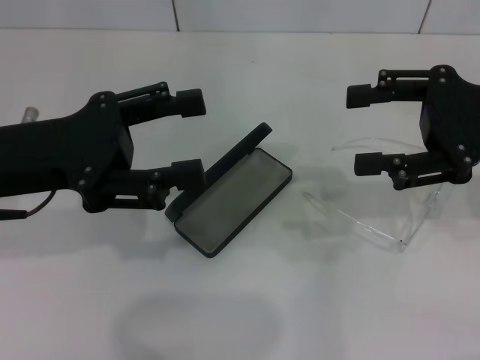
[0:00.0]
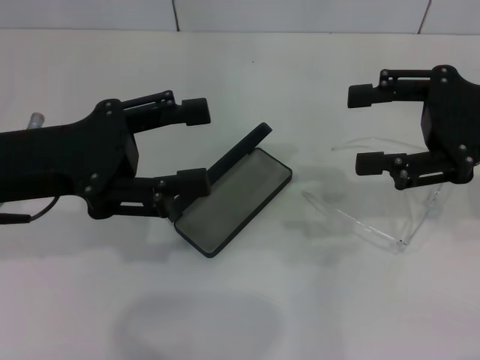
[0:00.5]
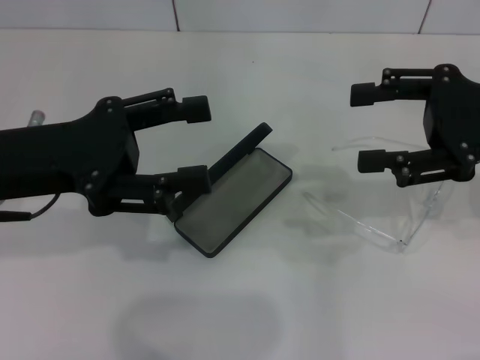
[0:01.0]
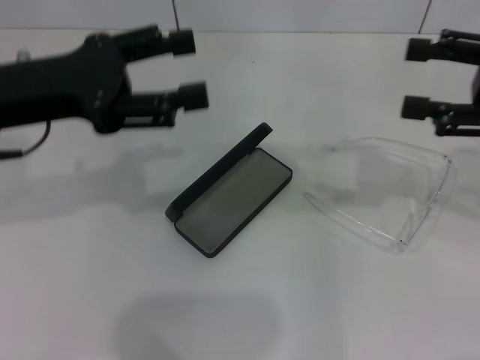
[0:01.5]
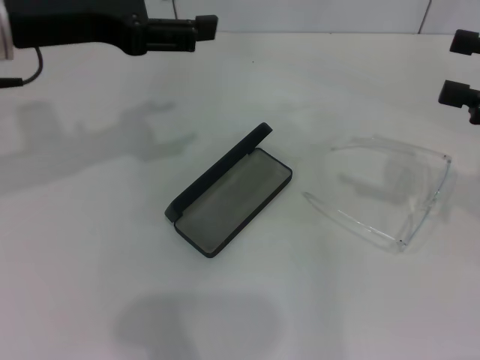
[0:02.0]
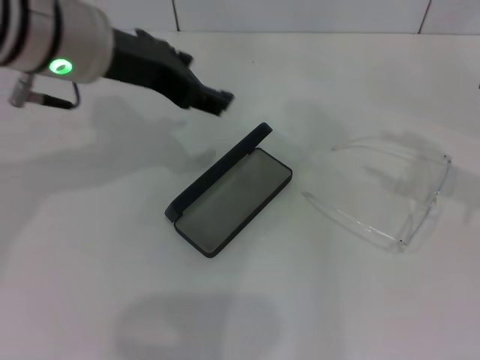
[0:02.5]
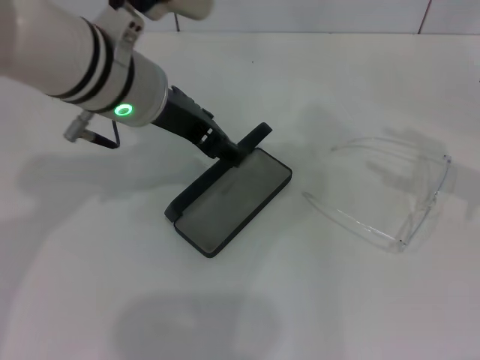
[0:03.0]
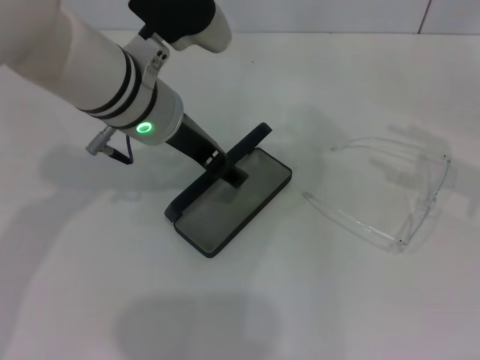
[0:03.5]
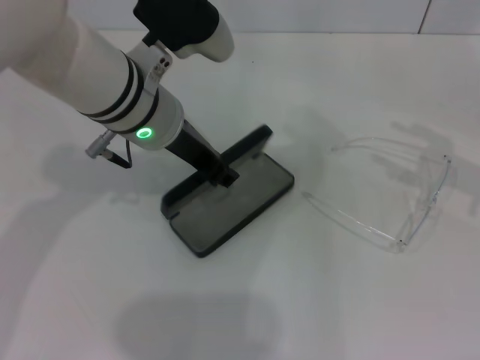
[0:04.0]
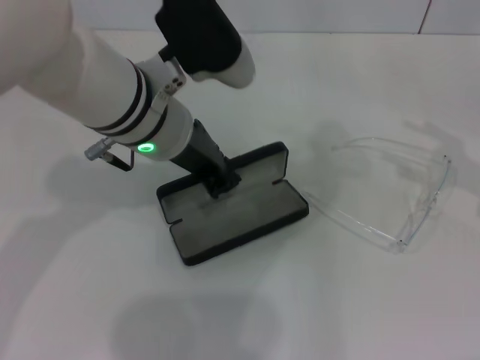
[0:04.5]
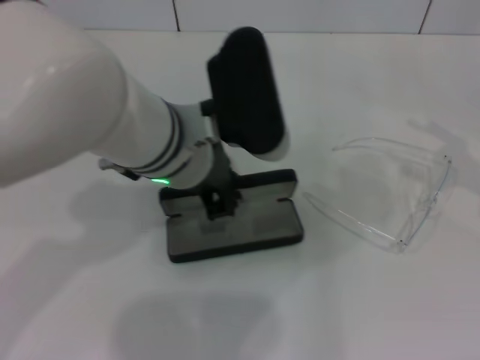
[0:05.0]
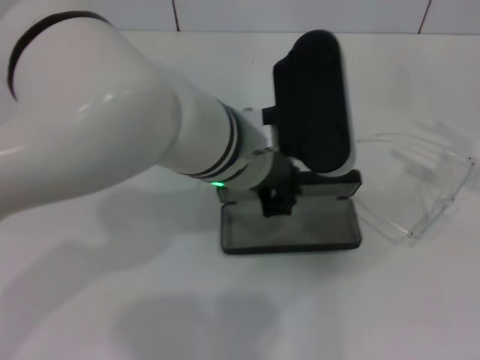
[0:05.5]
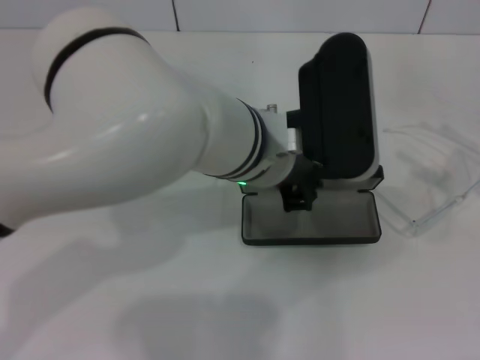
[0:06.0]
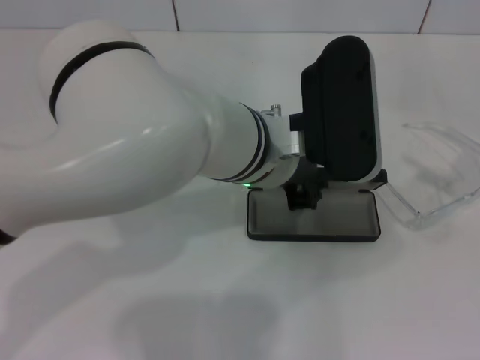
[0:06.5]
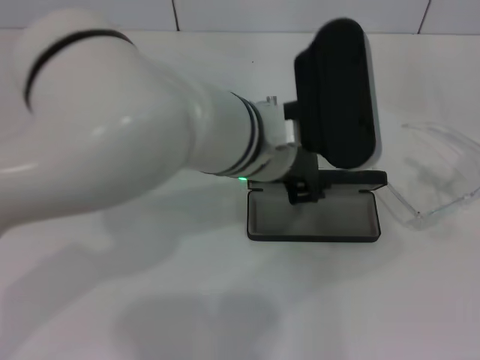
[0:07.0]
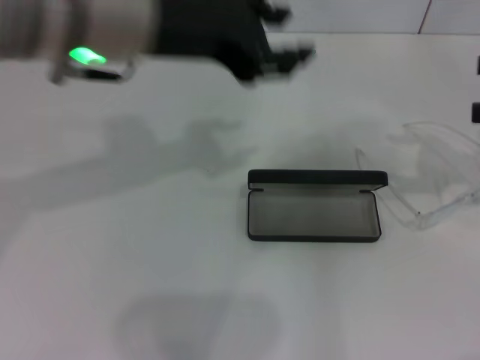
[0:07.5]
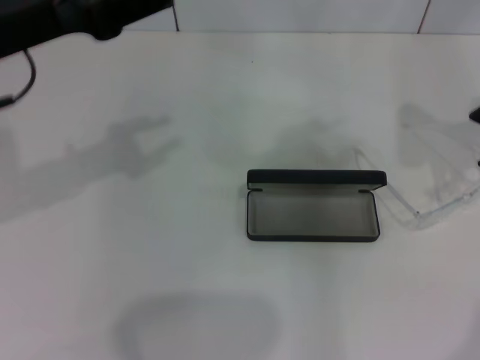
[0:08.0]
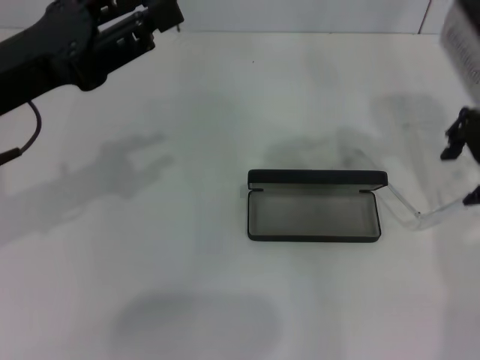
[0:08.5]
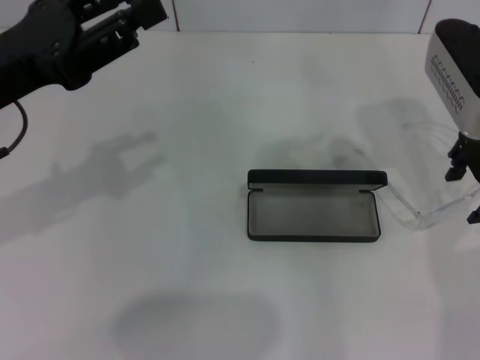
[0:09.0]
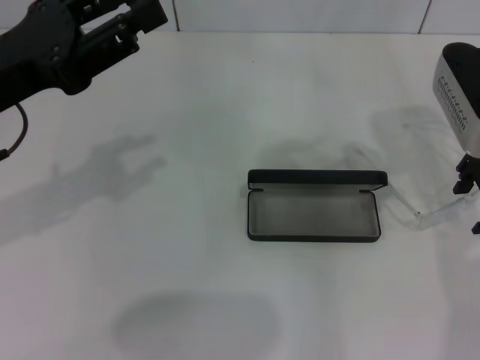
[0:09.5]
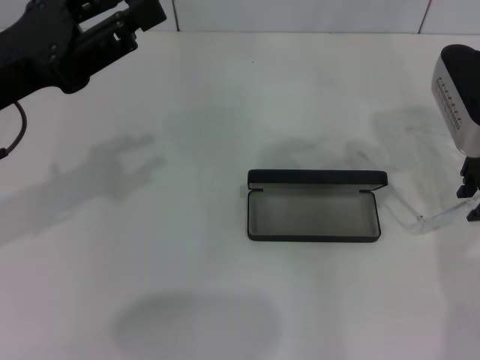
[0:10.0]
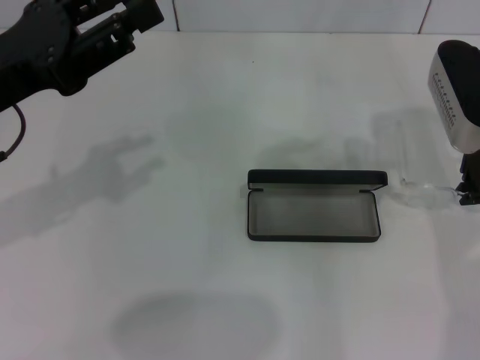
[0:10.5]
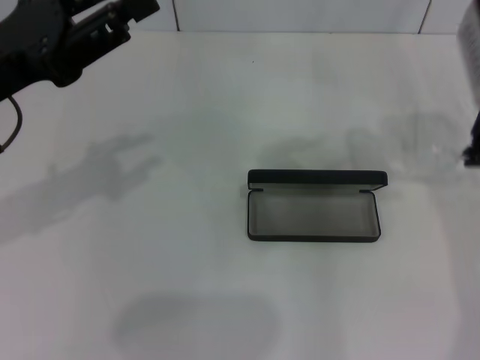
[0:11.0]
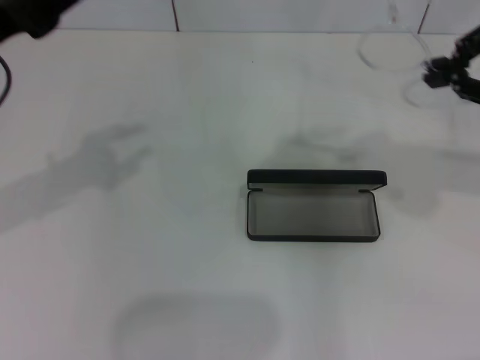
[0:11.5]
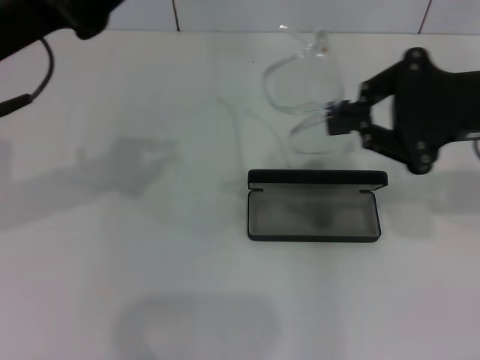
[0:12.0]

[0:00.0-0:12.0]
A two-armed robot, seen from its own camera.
Step, 0:00.0 to 0:04.0: Grab the glasses case with your left hand.
Step, 0:04.5 to 0:06.5: Place the glasses case in the center of the table with your left hand.
Step, 0:07.0 to 0:10.0: Grab the eyeglass frame with your right hand.
0:00.0 to 0:02.0: The right gripper is displaced to the right by roughly 5 cm, while the left gripper goes about 10 cm upward and forward.
0:02.0 to 0:04.0: The left gripper goes some 15 cm to the right and downward, and closes its fingers.
0:04.0 to 0:06.0: The left gripper is displaced to the right and backward by approximately 10 cm, and closes.
0:06.0 to 0:08.0: The left gripper heads to the left, covering roughly 25 cm, and opens up. Meanwhile the right gripper shifts about 15 cm forward, to the left and upward.
0:08.0 to 0:10.0: The right gripper shifts about 10 cm to the left and downward.
0:10.0 to 0:12.0: The right gripper moves backward, approximately 5 cm, and closes.

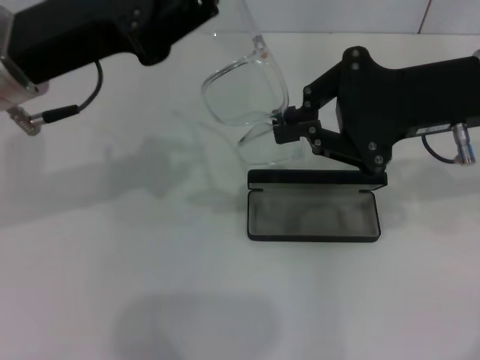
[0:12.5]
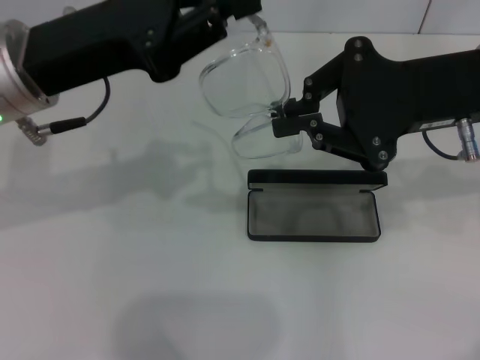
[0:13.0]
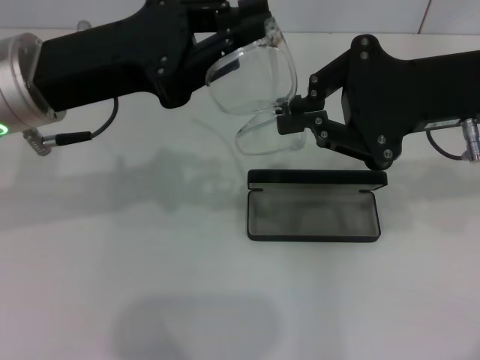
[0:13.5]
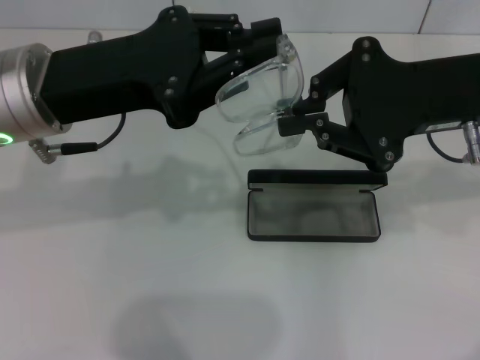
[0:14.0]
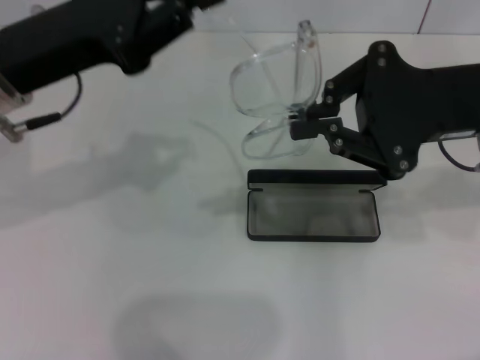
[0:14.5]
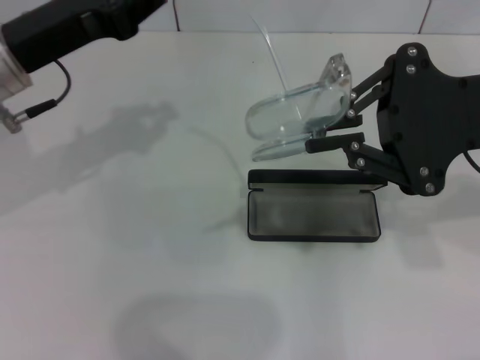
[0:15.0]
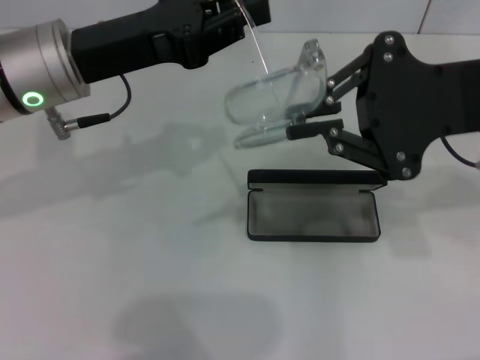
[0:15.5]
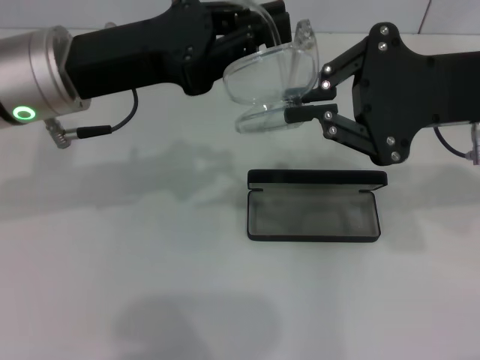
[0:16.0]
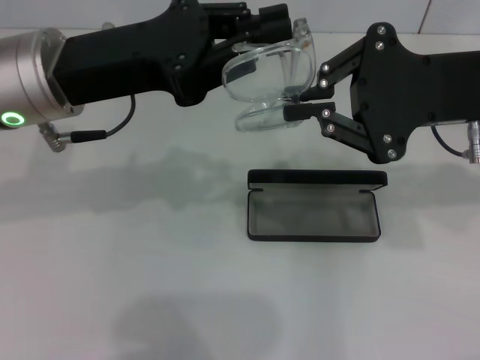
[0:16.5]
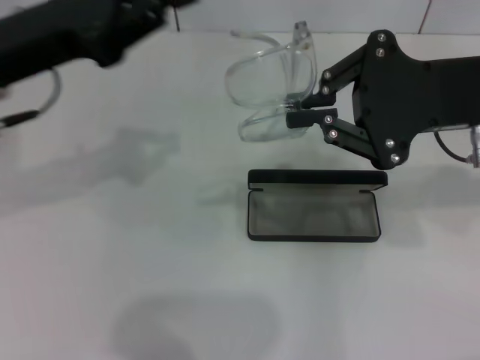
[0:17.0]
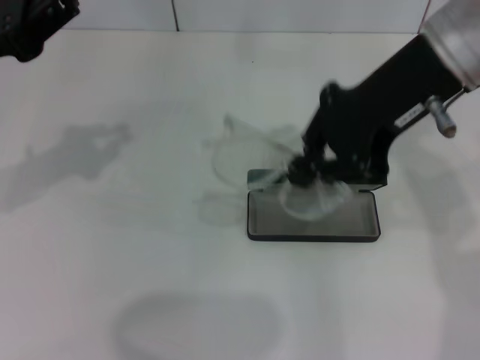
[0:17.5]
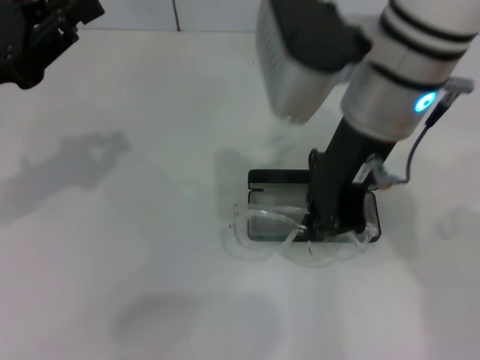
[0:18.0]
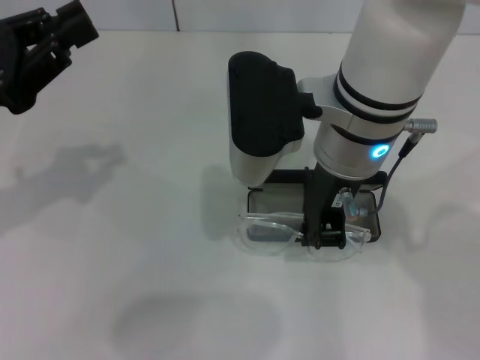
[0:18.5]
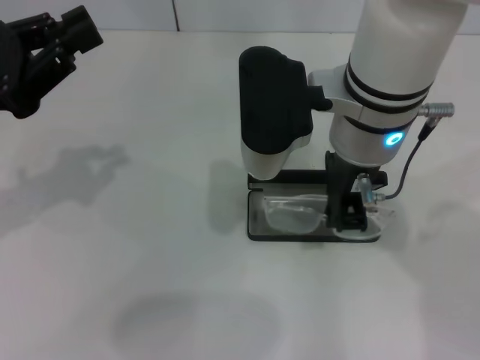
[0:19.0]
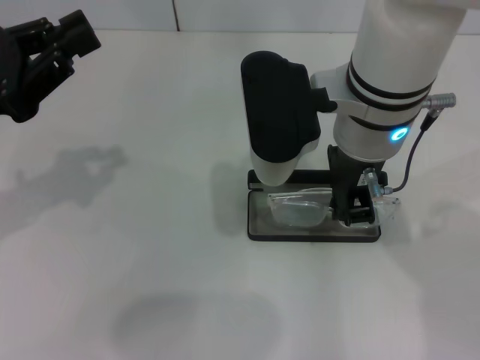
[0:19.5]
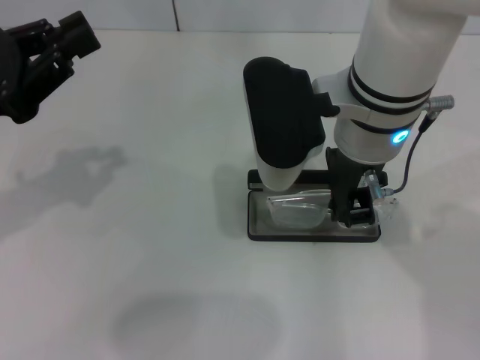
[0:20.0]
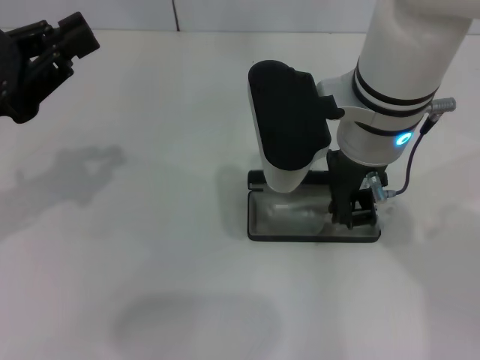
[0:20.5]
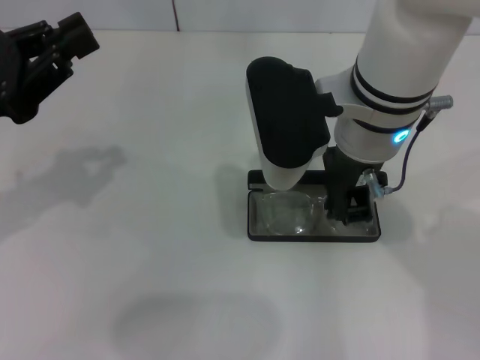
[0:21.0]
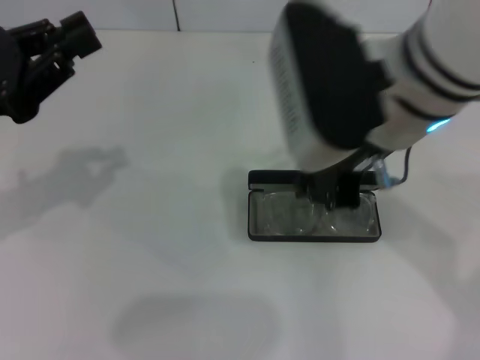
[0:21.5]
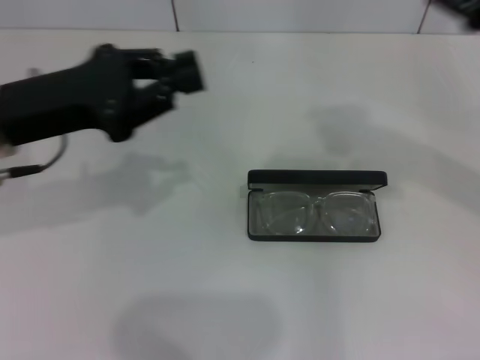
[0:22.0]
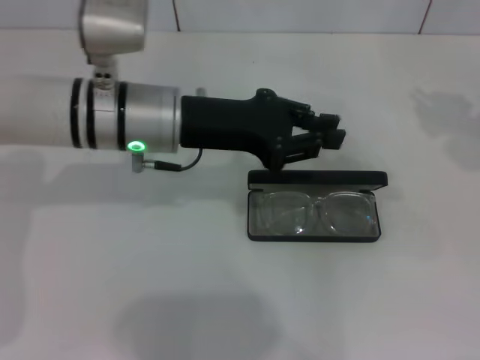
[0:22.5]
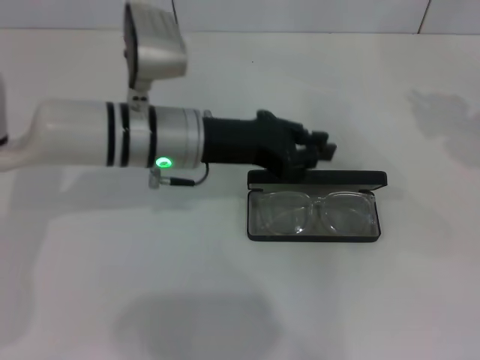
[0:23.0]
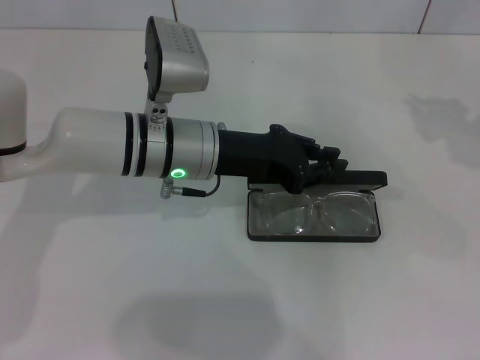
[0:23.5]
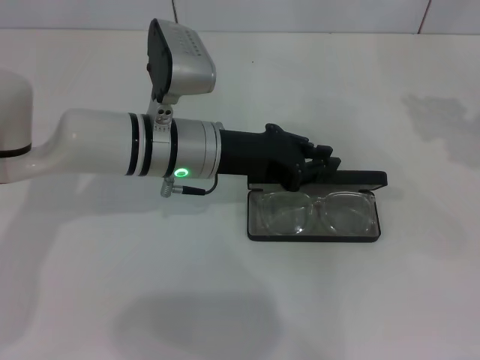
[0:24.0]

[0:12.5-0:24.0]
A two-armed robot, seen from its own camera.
Step, 0:12.5 to 0:16.5: Fold the frame with your left hand.
Step, 0:17.0 to 0:20.5: Put the glasses into the case with your right hand.
0:12.5 to 0:14.5: The grippers stay close to where they were, moving slightly.
0:16.5 to 0:18.5: Both grippers move to the left, about 15 cm.
0:18.5 to 0:20.0: The grippers stay close to where they were, moving slightly.
0:20.0 to 0:22.0: The right gripper heads to the right and upward, covering some 20 cm. The left gripper is displaced to the right by approximately 5 cm.
0:22.0 to 0:24.0: The right gripper is displaced downward and to the right by roughly 15 cm. Meanwhile the left gripper travels to the right and downward by some 15 cm.

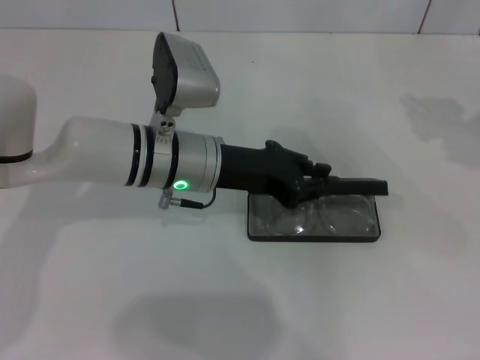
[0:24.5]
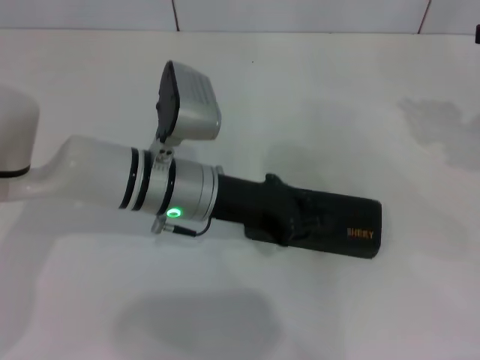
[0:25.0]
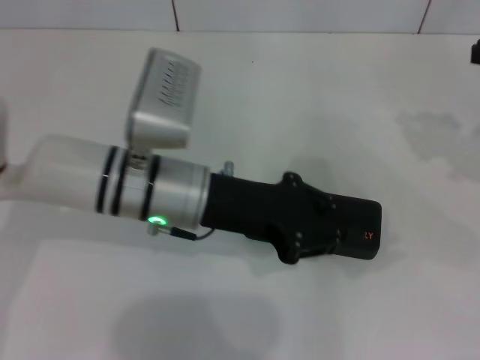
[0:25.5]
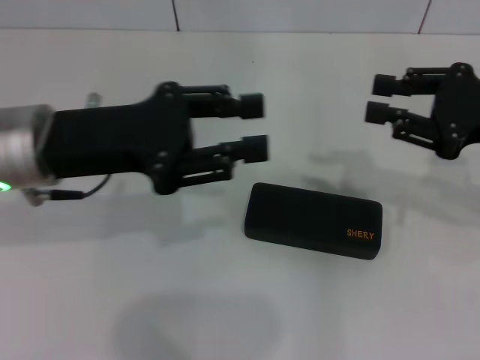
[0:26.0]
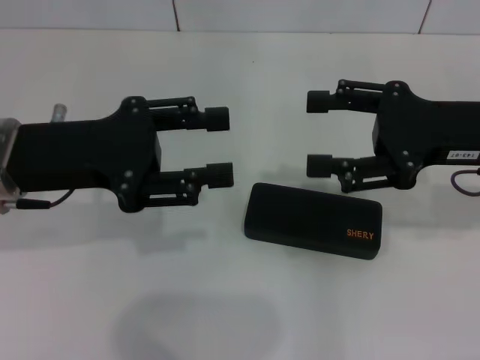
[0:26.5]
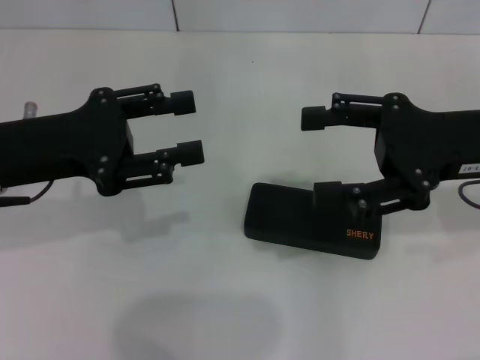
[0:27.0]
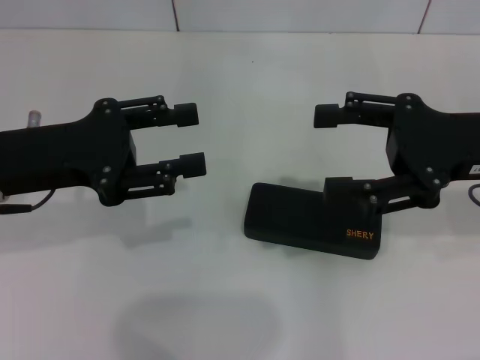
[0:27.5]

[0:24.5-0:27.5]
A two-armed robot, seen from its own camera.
0:24.5 to 0:26.0: The right gripper shifts about 5 cm to the left. The left gripper shifts about 15 cm to the left, upward and backward.
0:26.0 to 0:27.5: The right gripper opens up; the left gripper shifts by some 5 cm, and opens its fingers.
